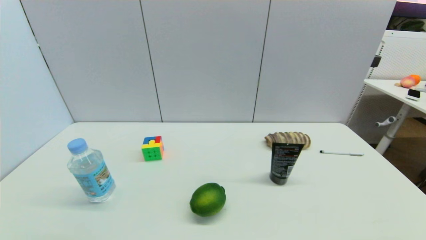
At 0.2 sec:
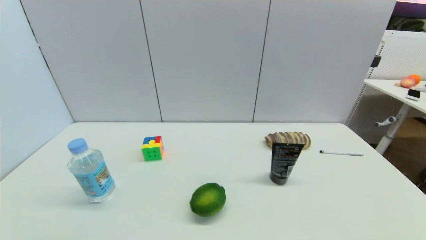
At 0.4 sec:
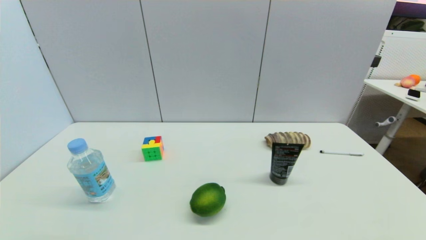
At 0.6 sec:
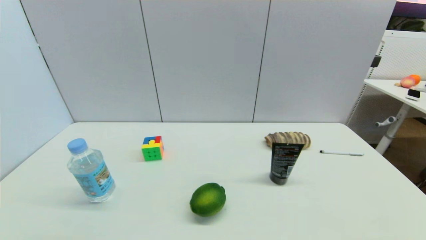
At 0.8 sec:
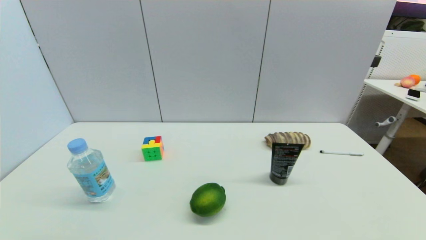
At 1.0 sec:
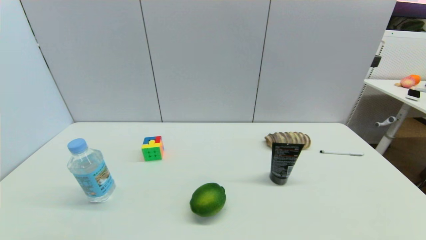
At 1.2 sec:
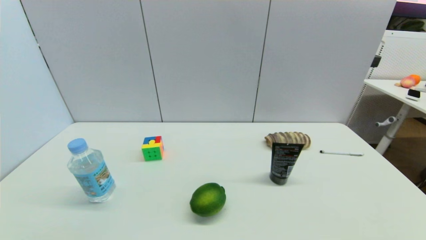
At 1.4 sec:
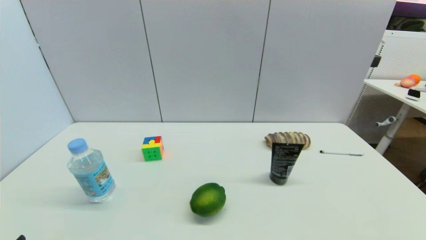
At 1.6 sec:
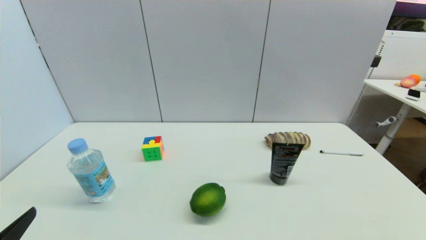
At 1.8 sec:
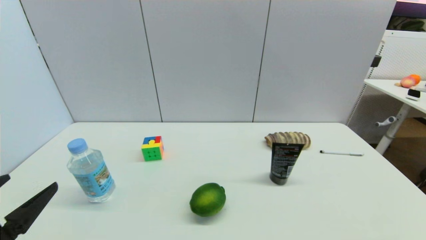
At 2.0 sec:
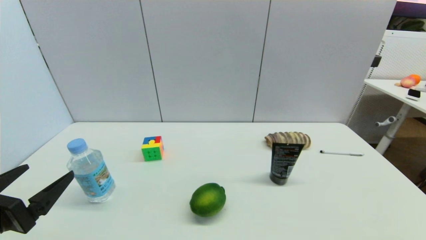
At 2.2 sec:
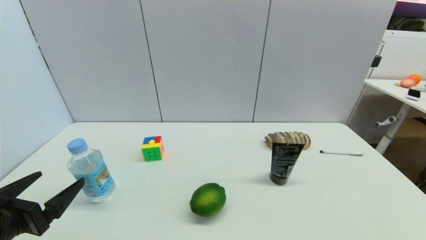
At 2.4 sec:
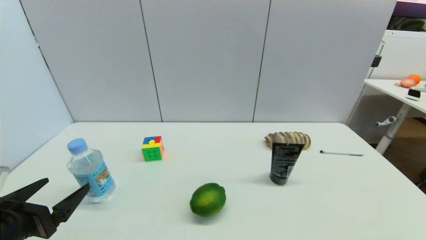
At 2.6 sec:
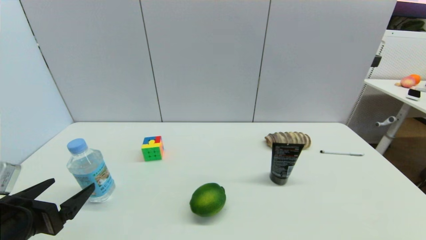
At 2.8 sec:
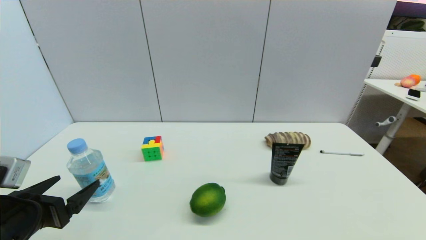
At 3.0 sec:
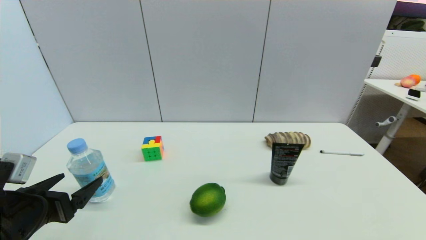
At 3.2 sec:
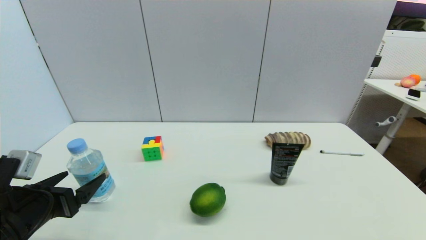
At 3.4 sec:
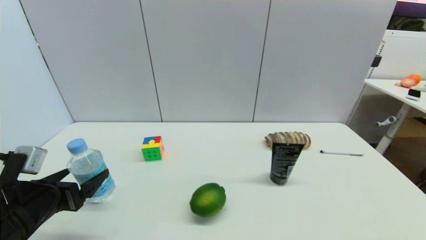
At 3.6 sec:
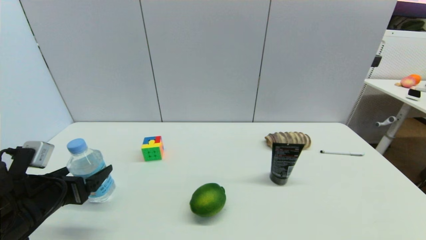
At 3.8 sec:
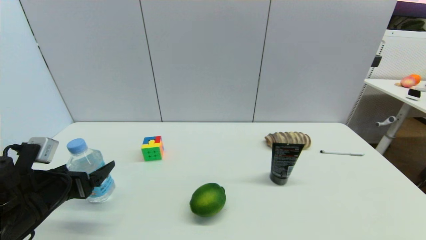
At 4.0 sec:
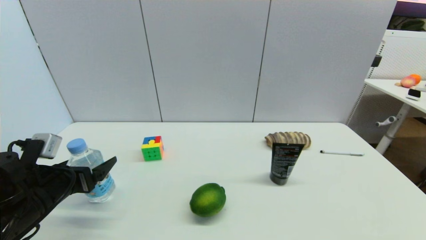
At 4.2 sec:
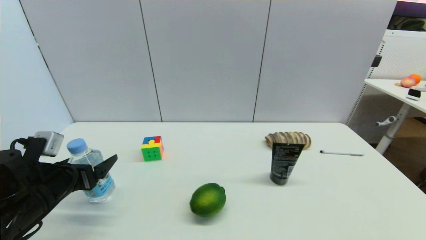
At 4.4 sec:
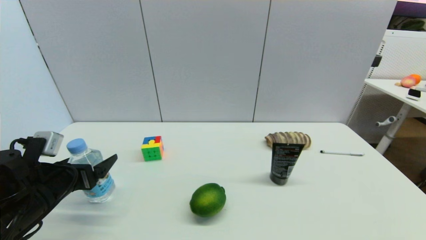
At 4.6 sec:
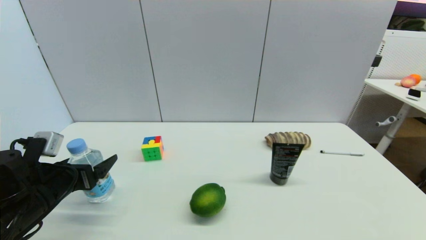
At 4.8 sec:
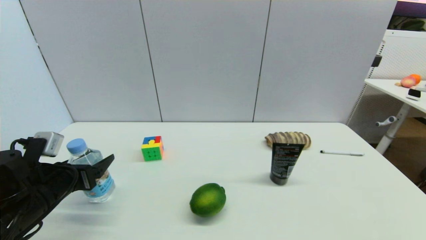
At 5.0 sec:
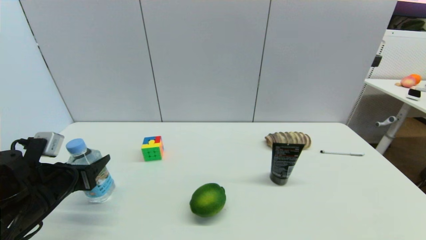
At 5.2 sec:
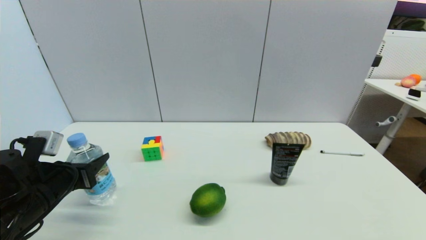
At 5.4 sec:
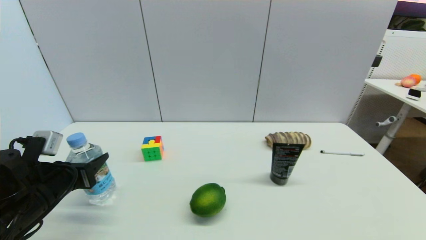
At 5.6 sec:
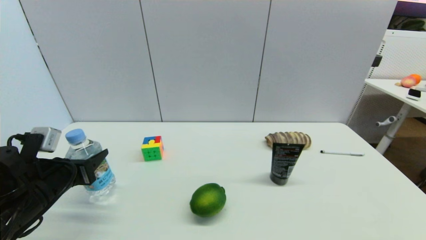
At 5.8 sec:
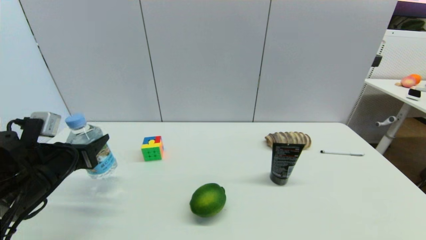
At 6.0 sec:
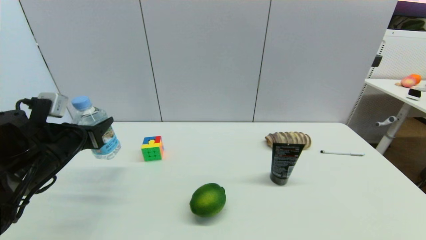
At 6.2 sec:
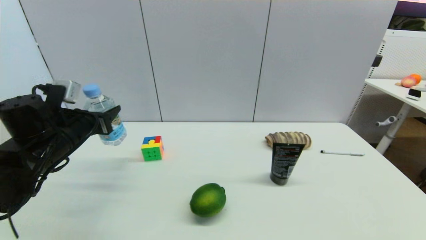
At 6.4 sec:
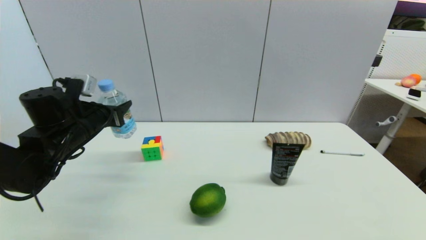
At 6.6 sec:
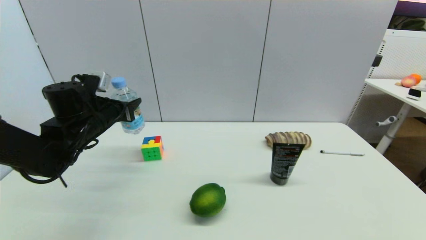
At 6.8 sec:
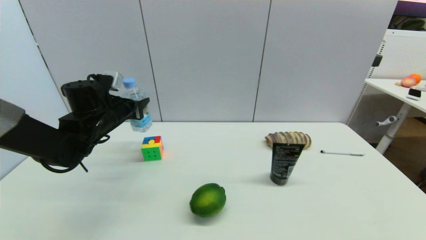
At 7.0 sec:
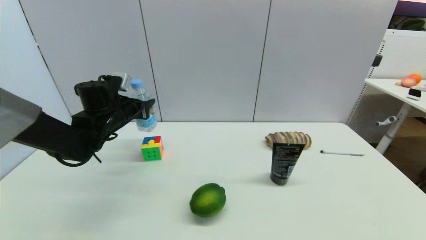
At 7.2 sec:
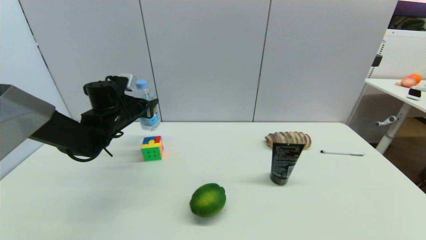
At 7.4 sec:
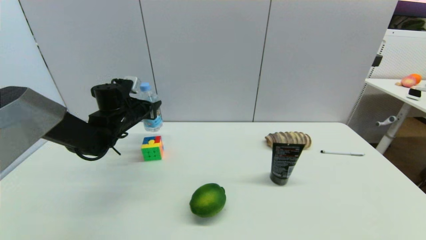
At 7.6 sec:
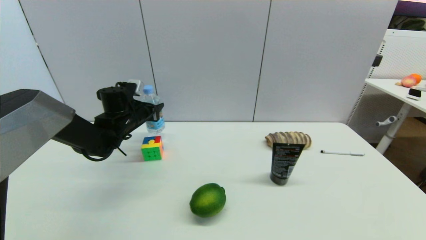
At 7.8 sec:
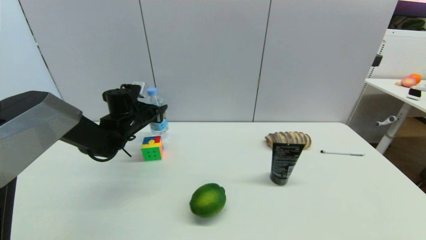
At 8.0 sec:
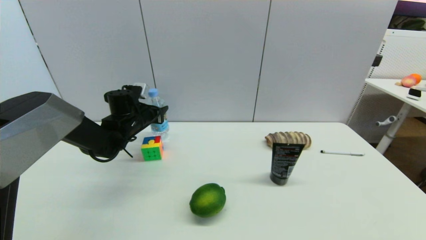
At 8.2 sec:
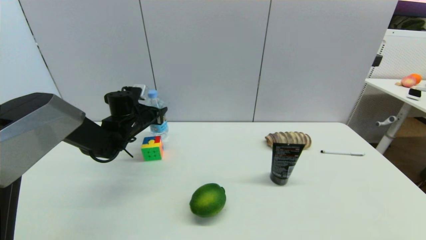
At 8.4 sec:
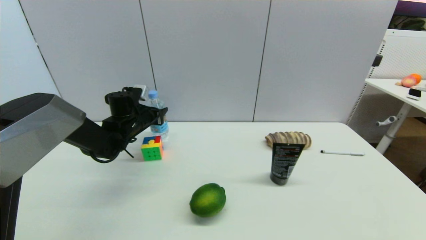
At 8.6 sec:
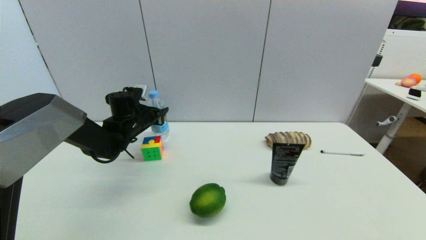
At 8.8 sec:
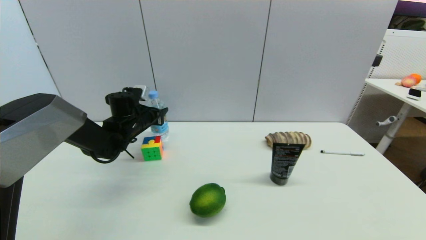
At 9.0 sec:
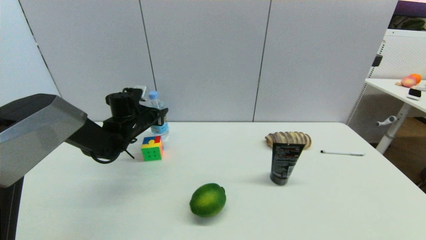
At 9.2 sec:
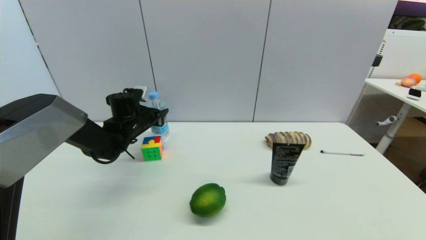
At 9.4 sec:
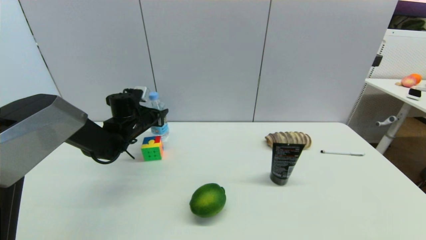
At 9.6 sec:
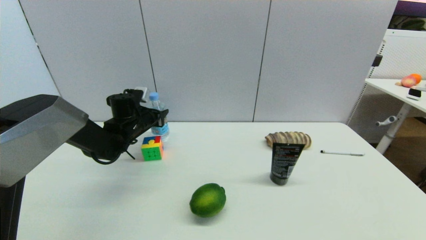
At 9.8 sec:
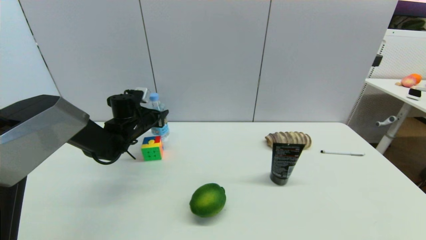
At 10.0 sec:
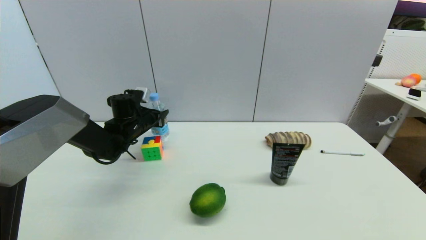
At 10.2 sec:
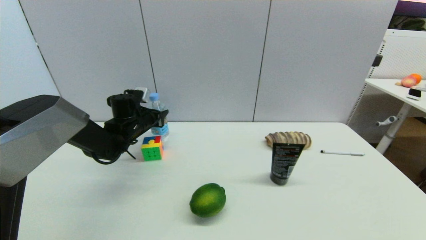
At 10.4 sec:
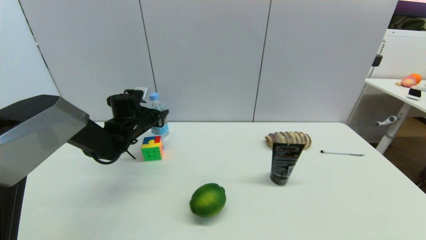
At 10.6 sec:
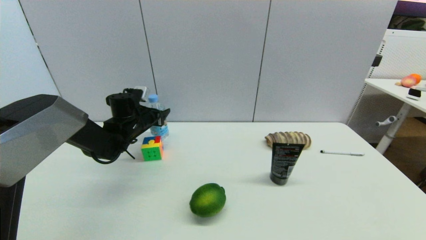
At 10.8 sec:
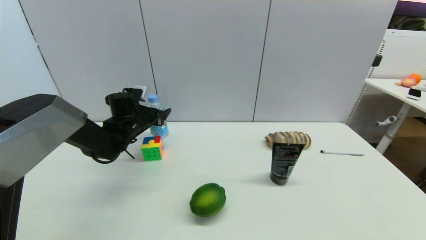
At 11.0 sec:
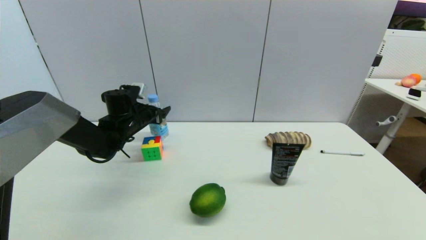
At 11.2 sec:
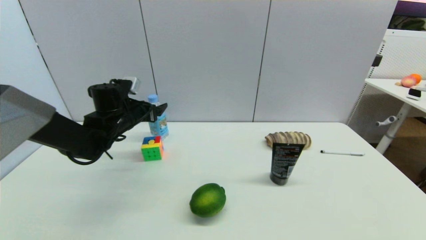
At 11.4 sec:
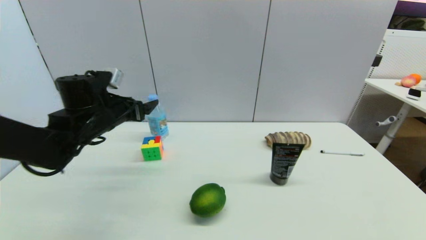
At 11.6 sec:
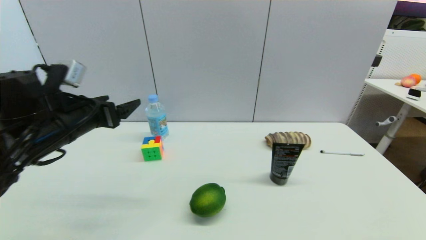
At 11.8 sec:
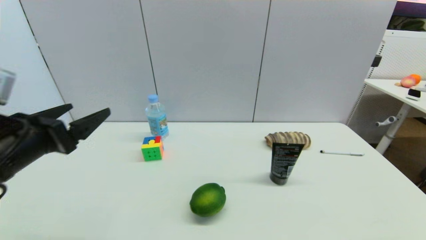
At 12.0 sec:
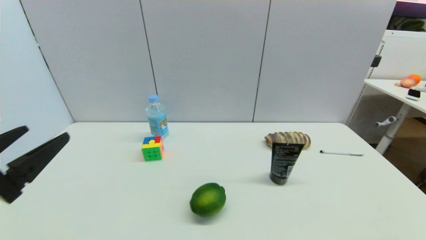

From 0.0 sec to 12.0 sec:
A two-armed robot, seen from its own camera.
Step, from 1.4 sec to 5.4 sec: Grasp the soda water with left gripper.
Step, from 5.8 sec to 10.8 sec: Place the soda water on the table with left gripper.
From 1.6 sec to 3.0 sec: The left gripper is displaced forward by roughly 10 cm.
From 3.0 sec to 4.4 sec: The left gripper is displaced forward by roughly 5 cm.
From 4.4 sec to 6.0 sec: The left gripper heads forward, covering about 5 cm, and closes up.
From 6.0 sec to 7.6 sec: The left gripper heads forward, covering approximately 15 cm.
From 7.6 sec to 9.0 sec: The grippers move only a little.
From 9.0 sec to 10.4 sec: The two grippers keep their place.
From 10.4 sec to 12.0 sec: The left gripper heads backward, covering some 35 cm, and opens.

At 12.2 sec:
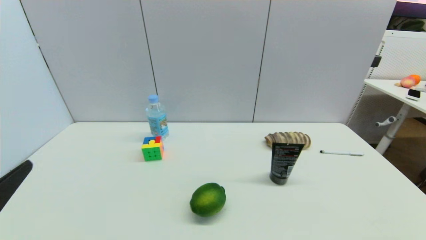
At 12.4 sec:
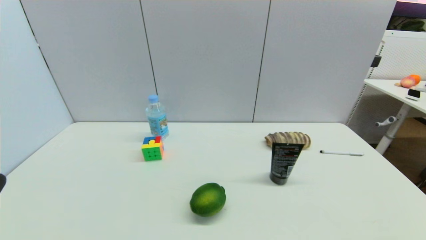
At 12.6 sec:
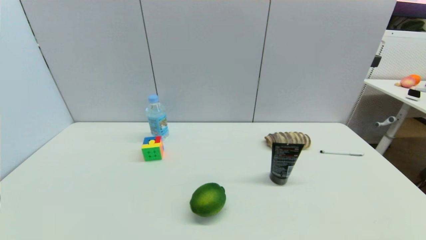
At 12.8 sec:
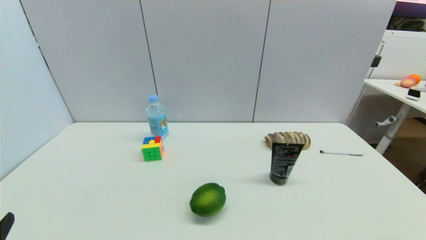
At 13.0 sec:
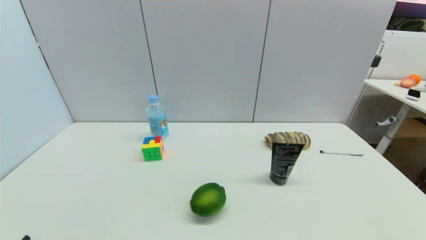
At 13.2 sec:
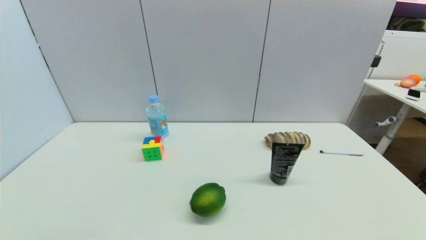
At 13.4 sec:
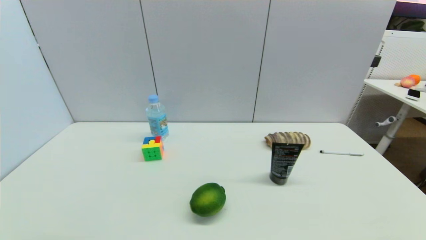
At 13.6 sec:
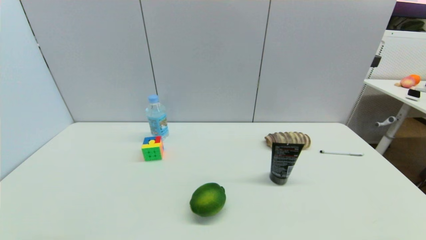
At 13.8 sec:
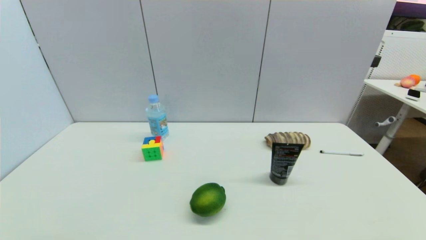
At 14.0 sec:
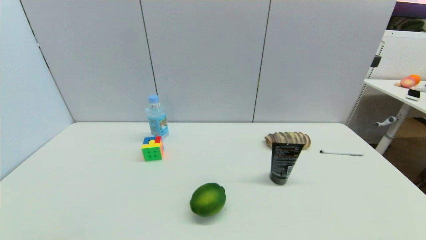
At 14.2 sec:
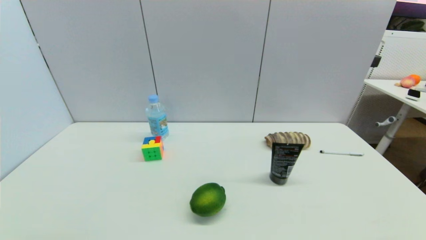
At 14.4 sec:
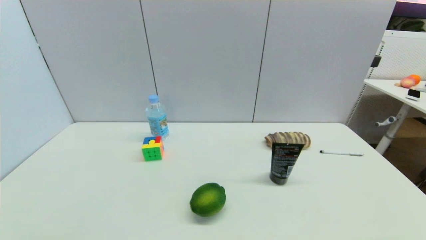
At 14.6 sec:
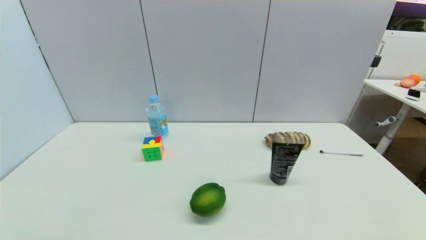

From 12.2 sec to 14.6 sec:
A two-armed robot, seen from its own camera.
From 12.2 sec to 13.4 sec: The left gripper heads downward and backward, covering roughly 15 cm.
From 13.4 sec to 14.6 sec: Neither gripper changes place.
